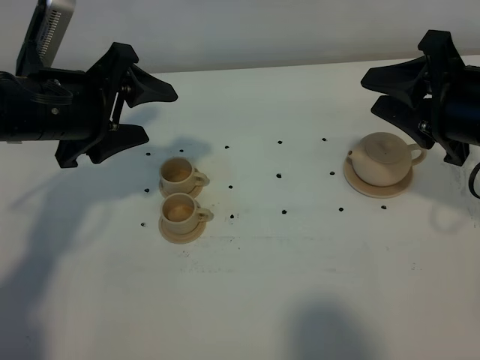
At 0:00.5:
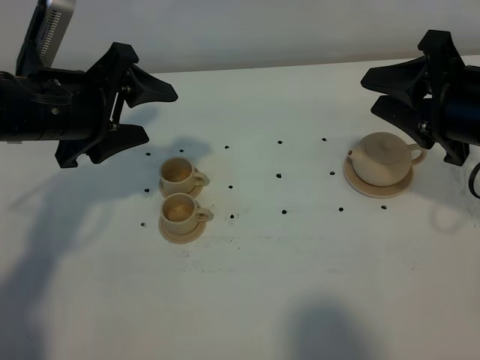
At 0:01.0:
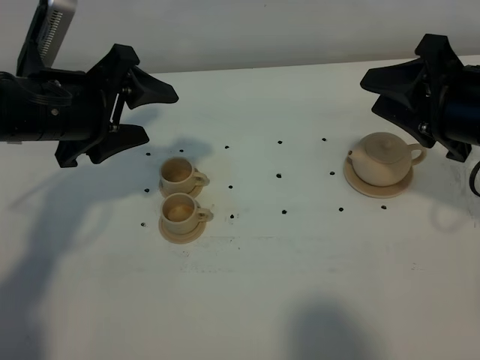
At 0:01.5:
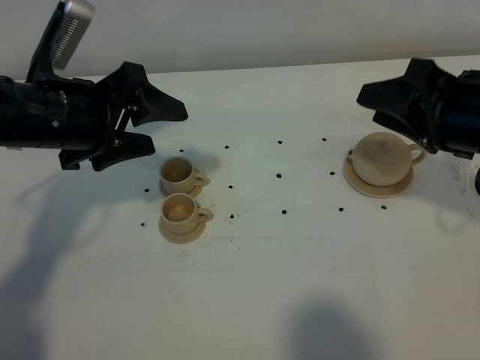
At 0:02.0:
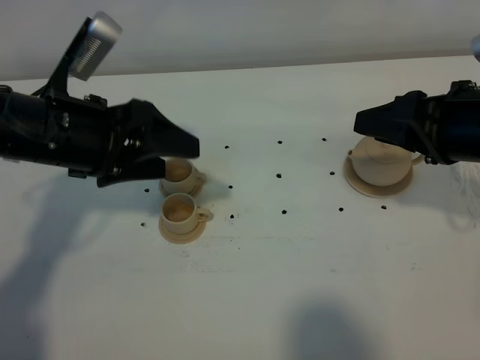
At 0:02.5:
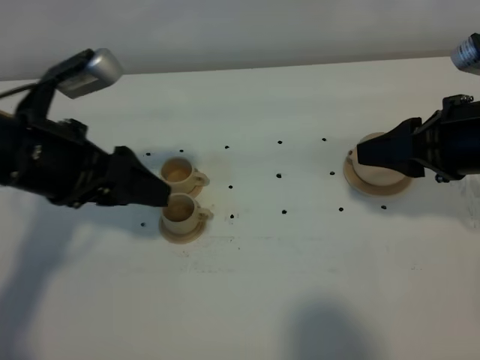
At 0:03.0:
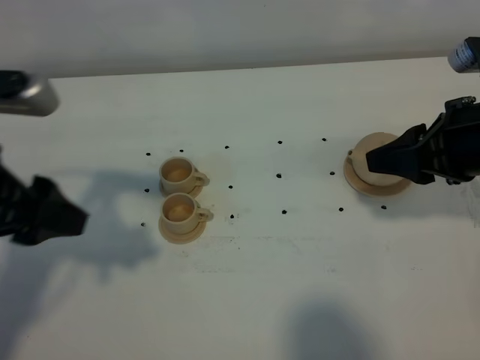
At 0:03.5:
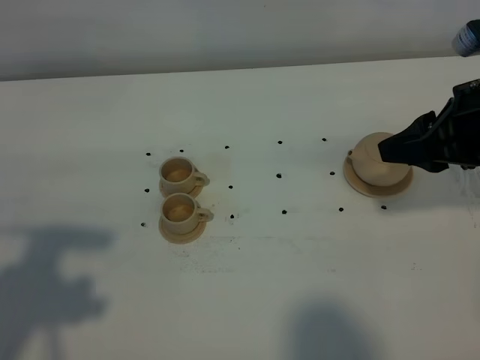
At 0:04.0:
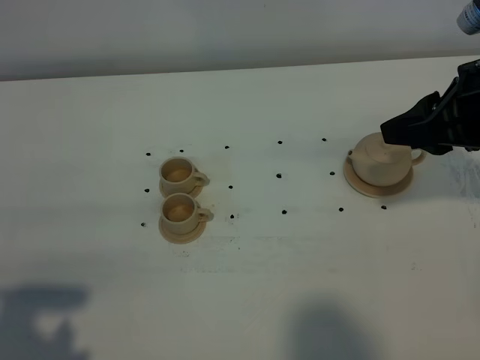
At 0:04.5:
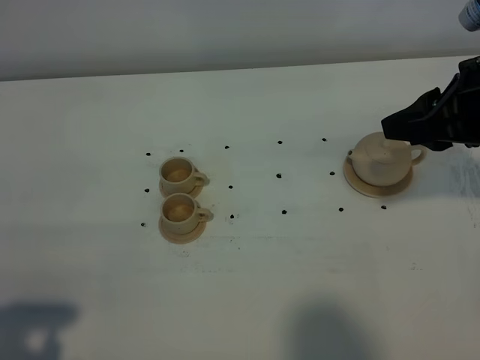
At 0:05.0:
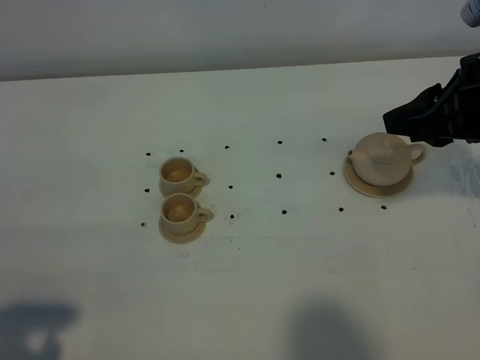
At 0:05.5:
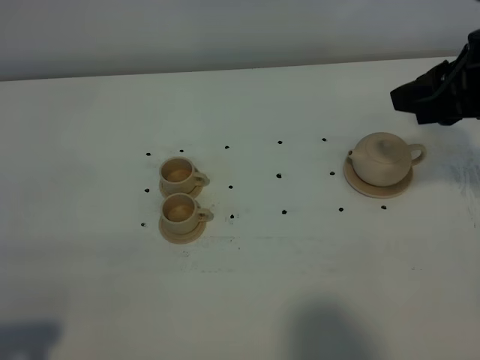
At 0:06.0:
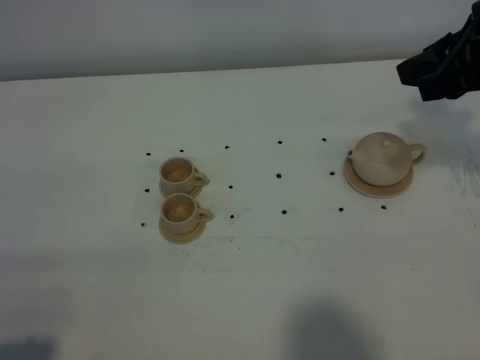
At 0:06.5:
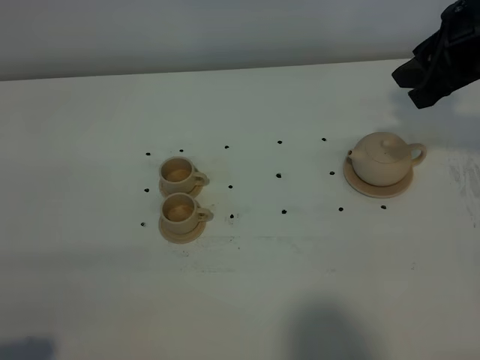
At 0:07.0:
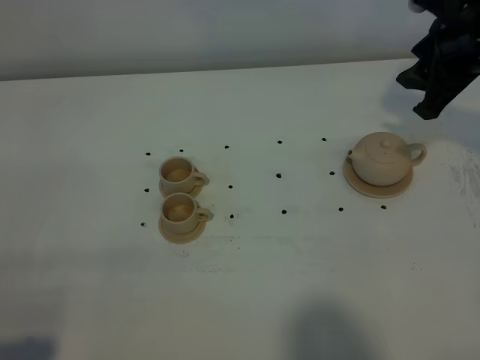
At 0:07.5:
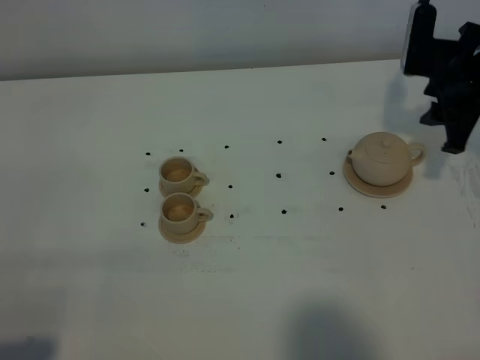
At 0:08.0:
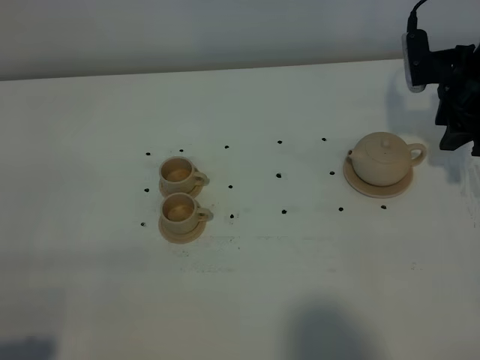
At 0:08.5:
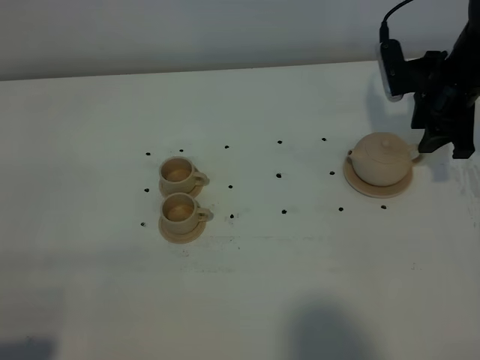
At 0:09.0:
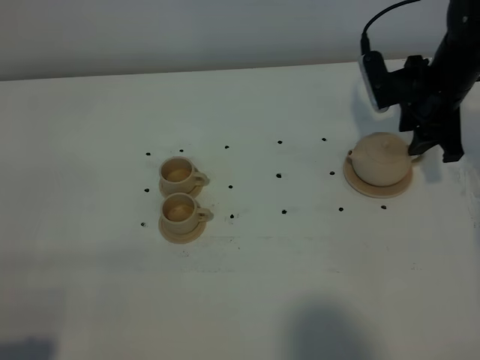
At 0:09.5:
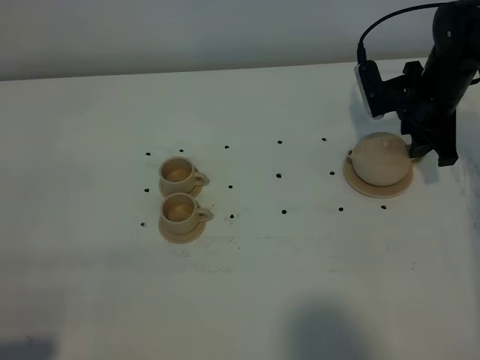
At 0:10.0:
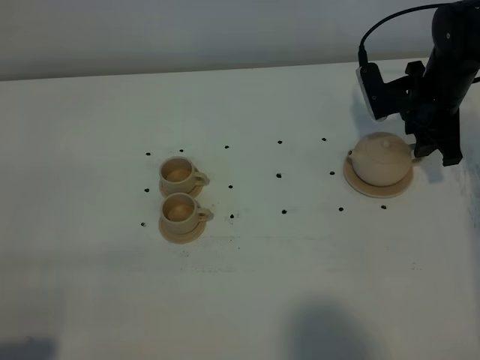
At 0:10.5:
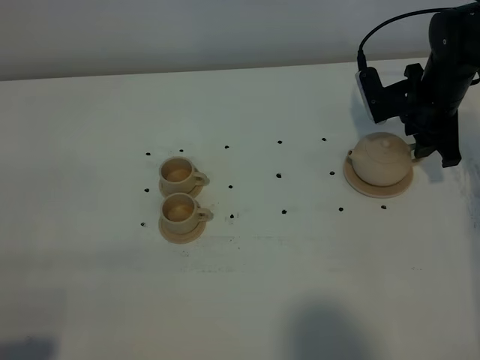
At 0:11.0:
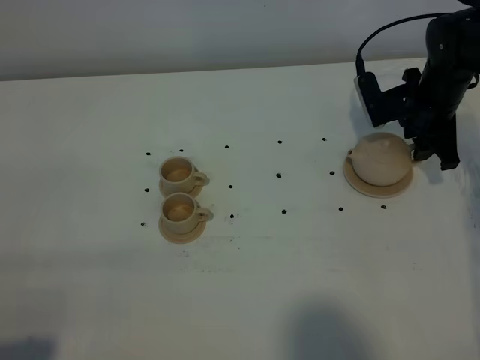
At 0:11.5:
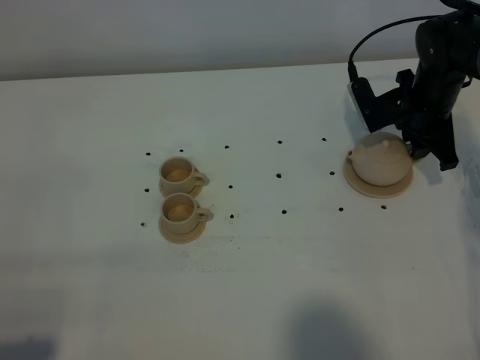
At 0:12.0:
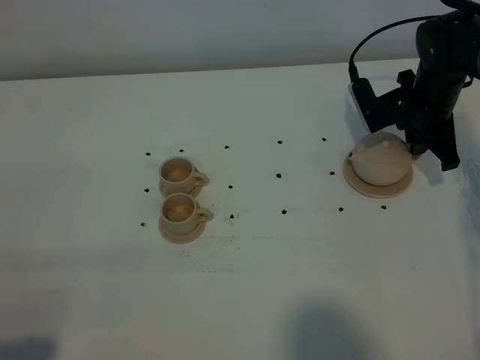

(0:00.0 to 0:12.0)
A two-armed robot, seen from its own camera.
Task of the whole recording: grasp the brown teapot and pour the tea into the two brown teacups one by one, put the brown teapot back in its original place.
0:02.0 - 0:04.0: The left gripper goes roughly 25 cm backward and to the left.
0:04.0 - 0:06.0: The left gripper shifts some 5 cm backward.
0:06.0 - 0:08.0: The right gripper goes some 15 cm downward and forward.
0:08.0 - 0:10.0: The right gripper travels downward by approximately 5 cm.
0:10.0 - 0:12.0: The right gripper closes its fingers.

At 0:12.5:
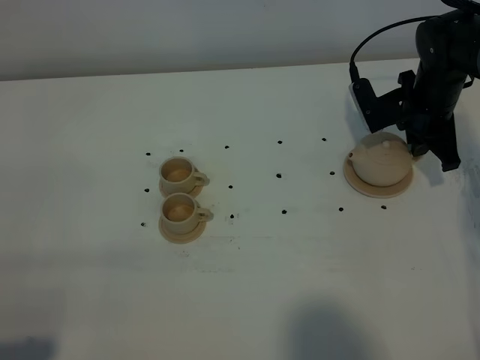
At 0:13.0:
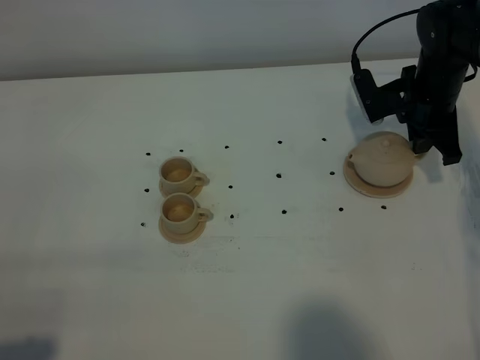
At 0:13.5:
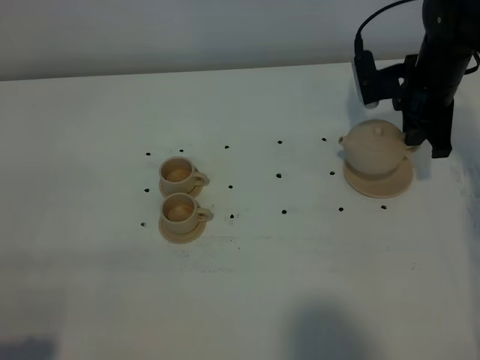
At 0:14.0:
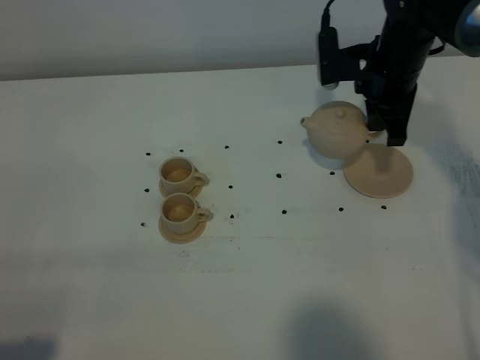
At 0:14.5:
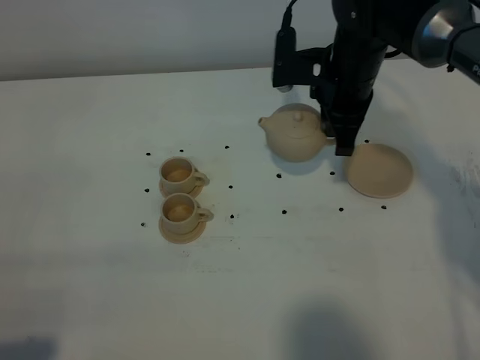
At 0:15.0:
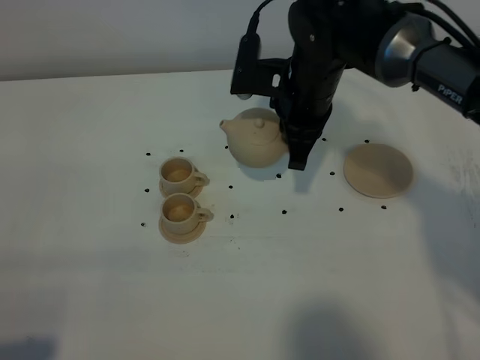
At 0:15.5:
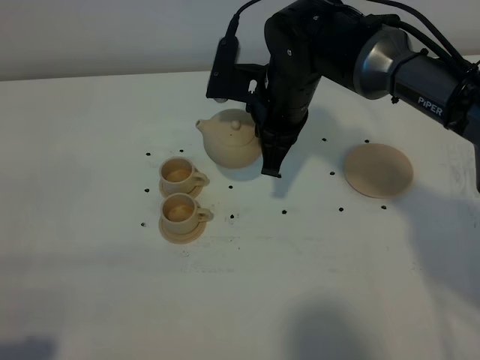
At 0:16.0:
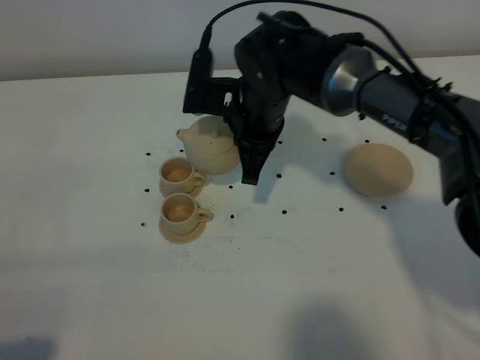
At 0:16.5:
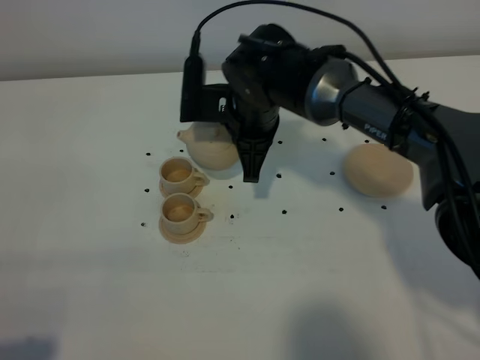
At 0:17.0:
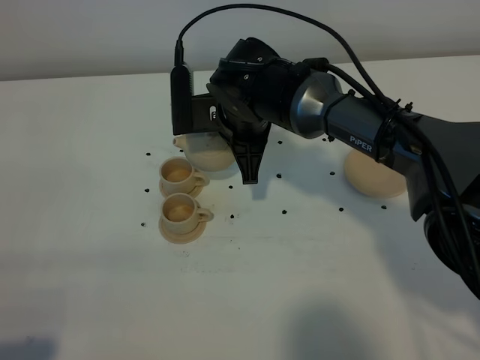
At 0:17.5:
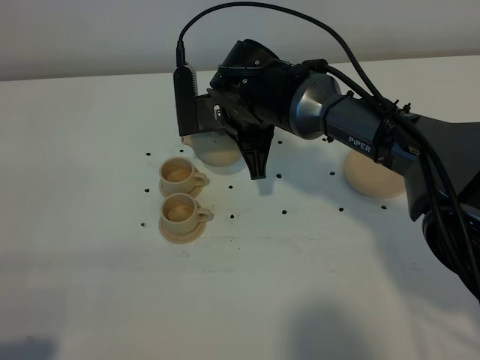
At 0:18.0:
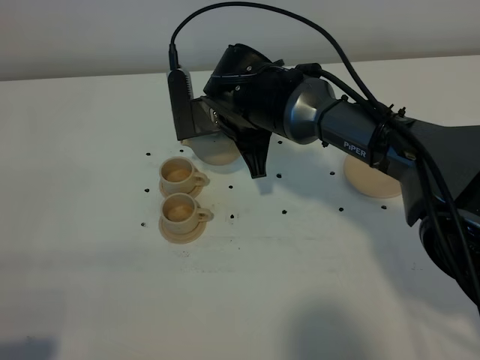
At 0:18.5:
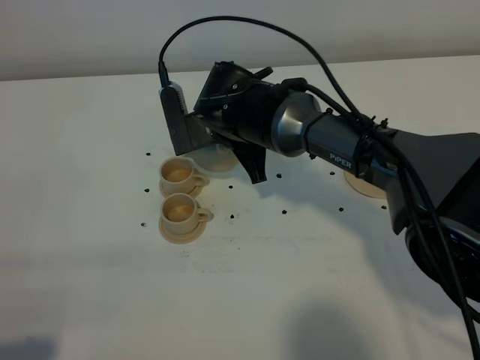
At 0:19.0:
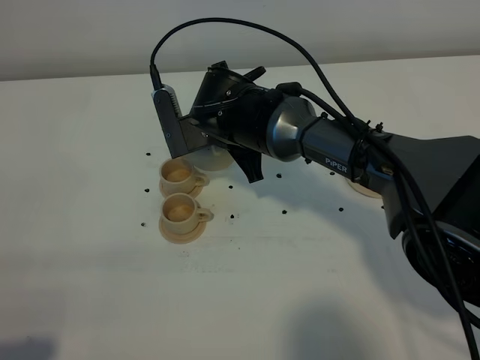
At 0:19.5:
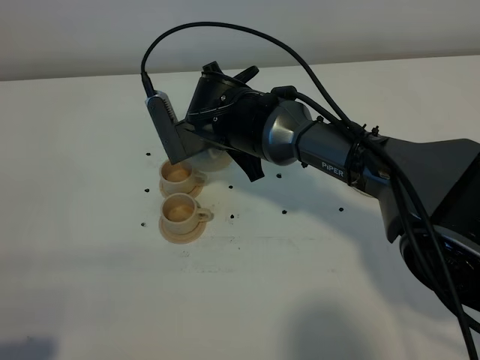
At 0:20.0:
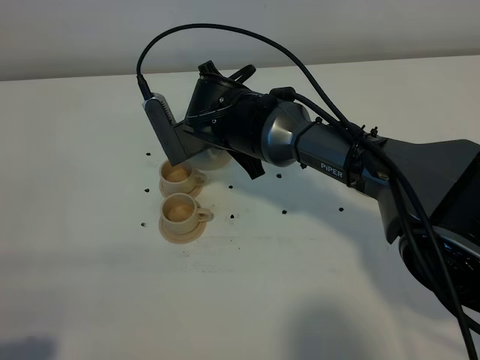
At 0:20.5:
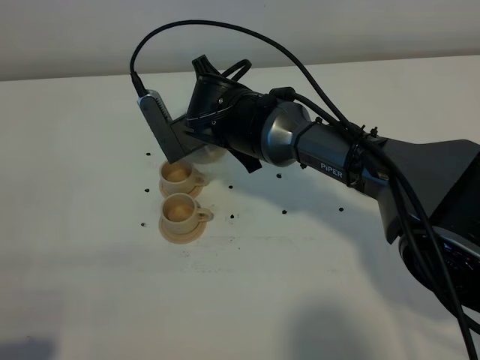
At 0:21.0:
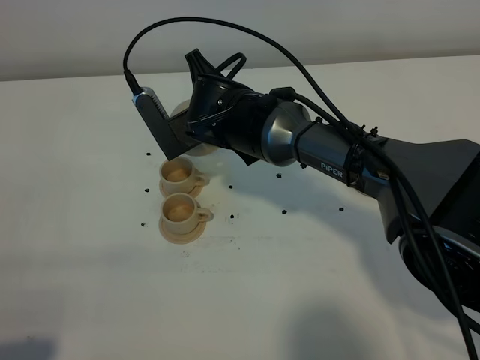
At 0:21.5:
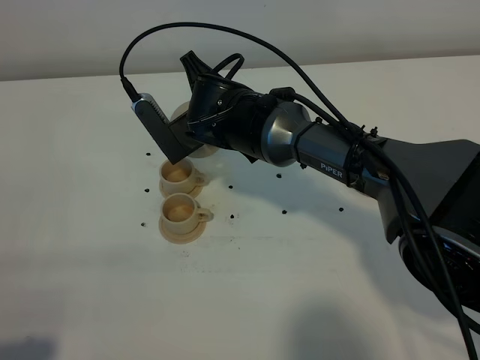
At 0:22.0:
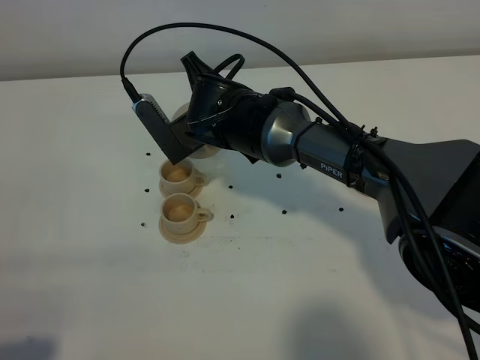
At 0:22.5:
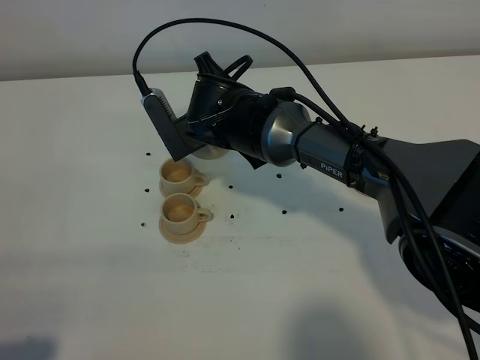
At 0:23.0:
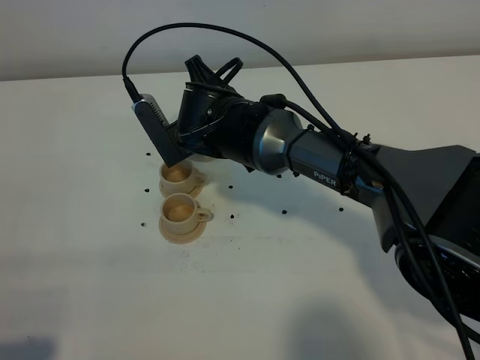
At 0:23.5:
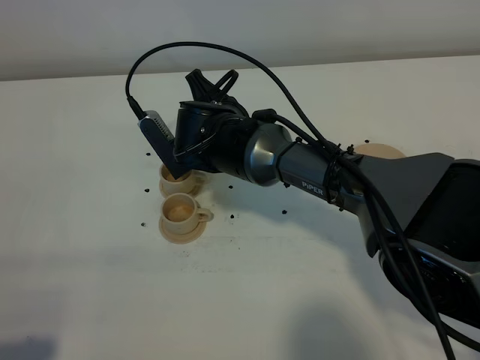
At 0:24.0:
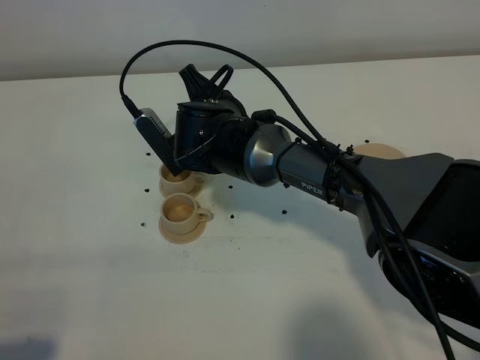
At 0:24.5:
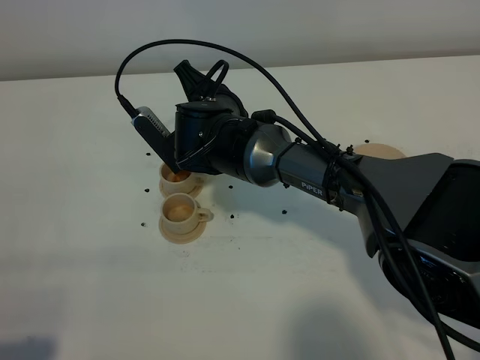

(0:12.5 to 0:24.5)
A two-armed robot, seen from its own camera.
Task of the whole recording: grasp the brown teapot and pour the tea into the two brown teacups one by one, put the brown teapot back in its original place.
0:12.5 - 0:14.5: The right gripper travels to the left and upward by about 15 cm.
0:14.5 - 0:16.5: The right gripper moves to the left, about 10 cm.
0:18.5 - 0:20.5: The grippers stay close to where they were, moving slightly.
0:20.5 - 0:24.5: There are only small adjustments of the grippers.

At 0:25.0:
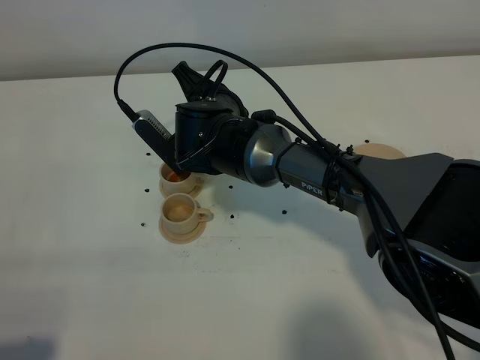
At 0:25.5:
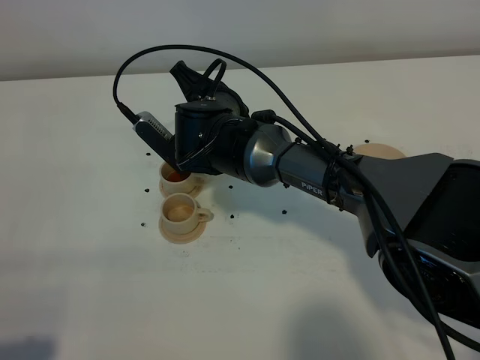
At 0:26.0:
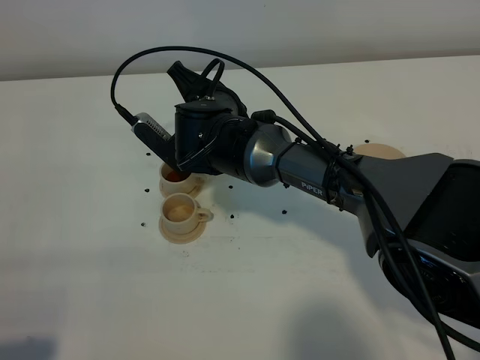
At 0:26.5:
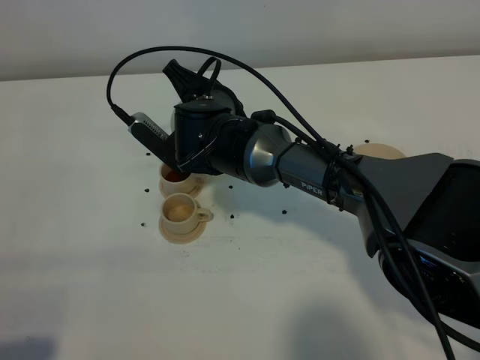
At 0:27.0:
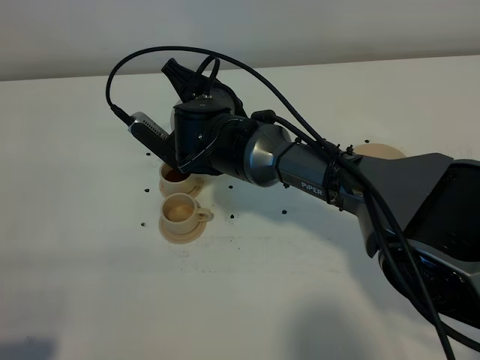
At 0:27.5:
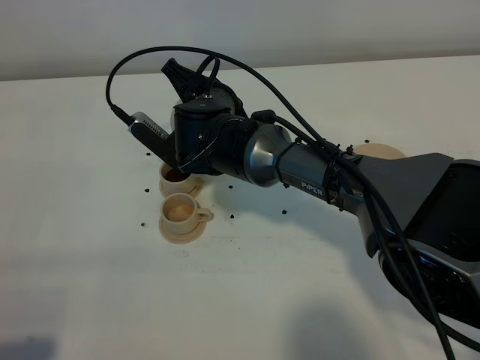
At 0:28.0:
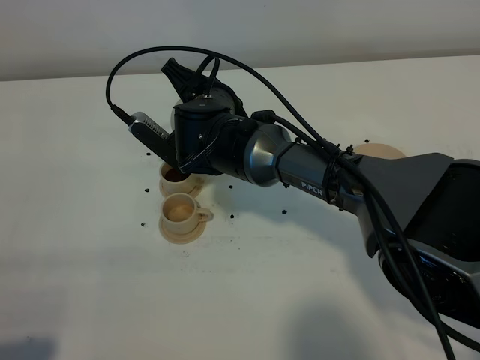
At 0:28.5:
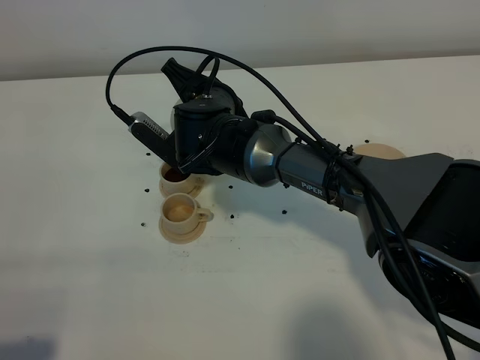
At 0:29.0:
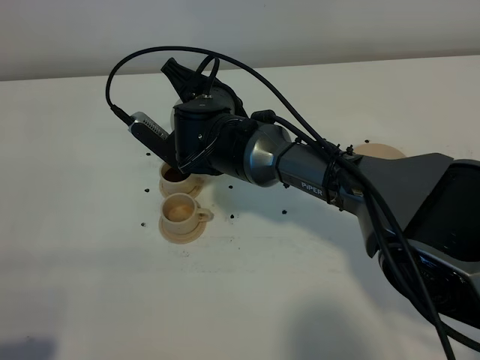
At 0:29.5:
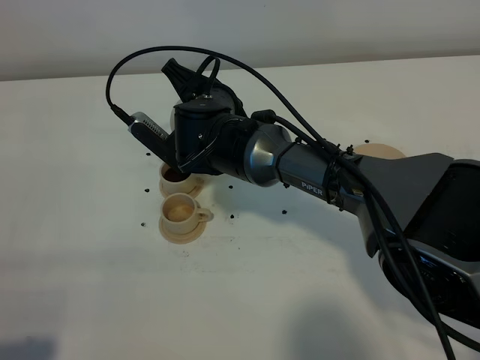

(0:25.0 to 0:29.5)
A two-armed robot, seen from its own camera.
Task of the whole recording: grasp the brown teapot and pour the tea into the two brown teacups one by one, put the brown teapot back in its original place.
0:25.0 - 0:27.0: There are only small adjustments of the grippers.
0:27.0 - 0:29.5: Both grippers stay about where they are.
